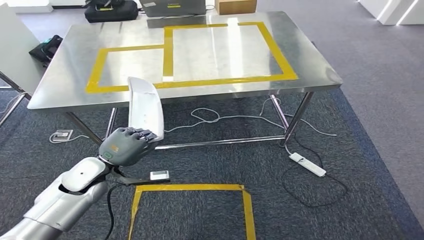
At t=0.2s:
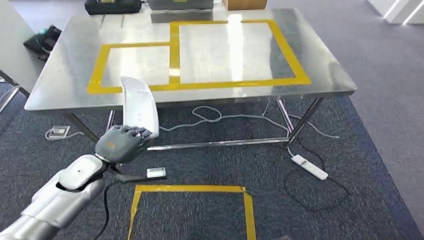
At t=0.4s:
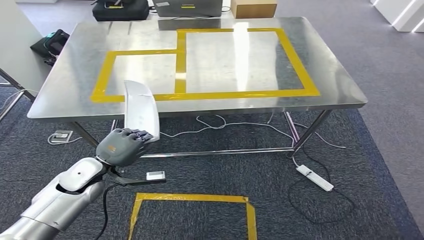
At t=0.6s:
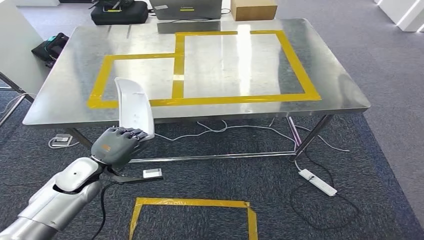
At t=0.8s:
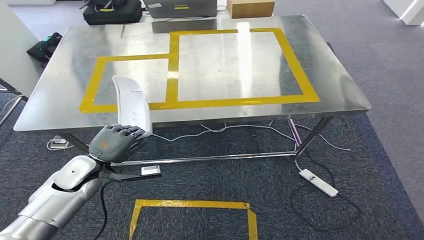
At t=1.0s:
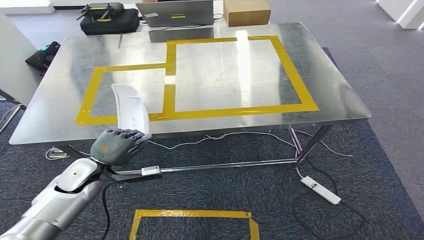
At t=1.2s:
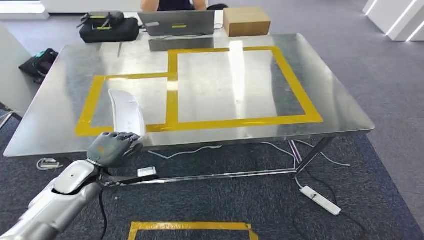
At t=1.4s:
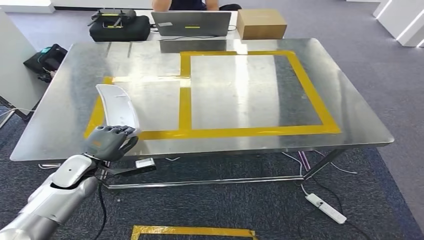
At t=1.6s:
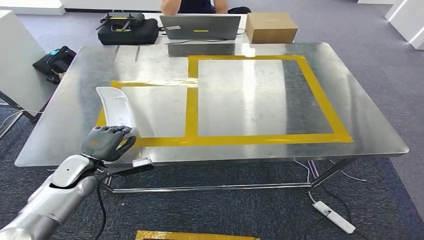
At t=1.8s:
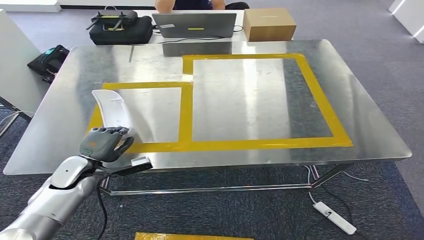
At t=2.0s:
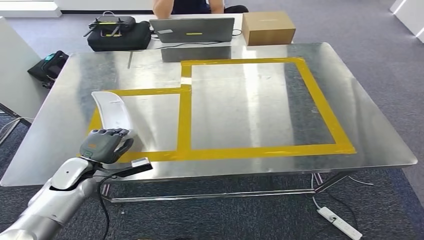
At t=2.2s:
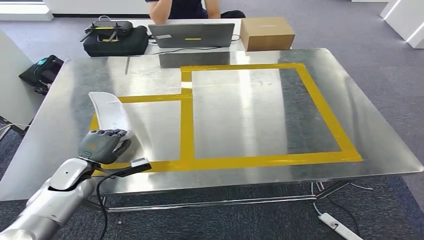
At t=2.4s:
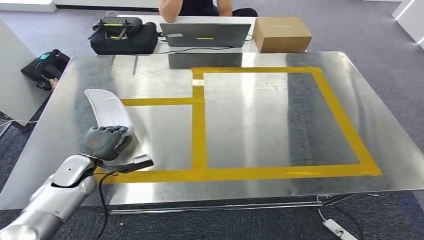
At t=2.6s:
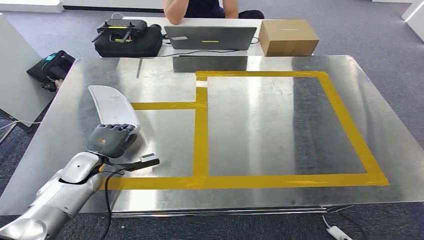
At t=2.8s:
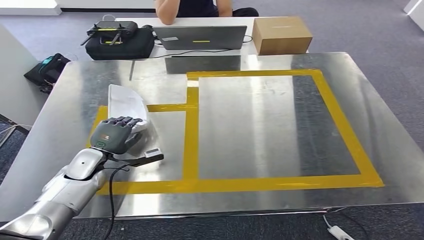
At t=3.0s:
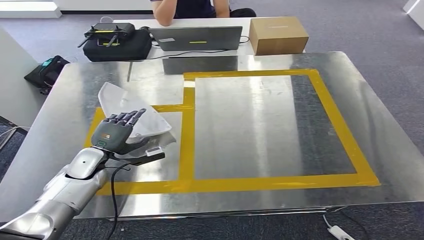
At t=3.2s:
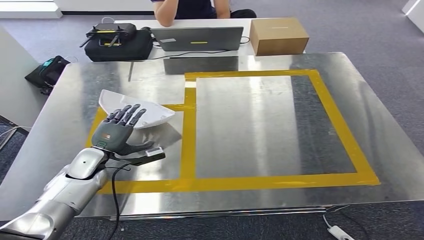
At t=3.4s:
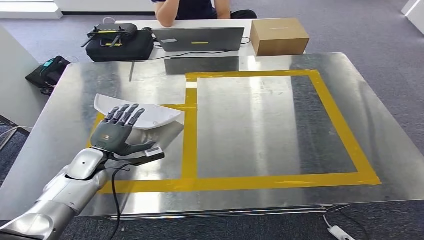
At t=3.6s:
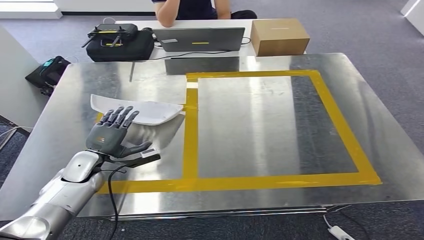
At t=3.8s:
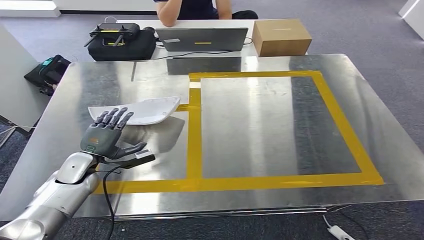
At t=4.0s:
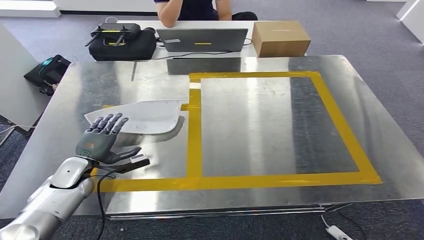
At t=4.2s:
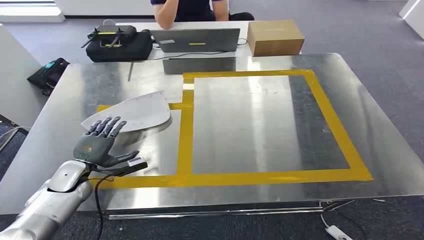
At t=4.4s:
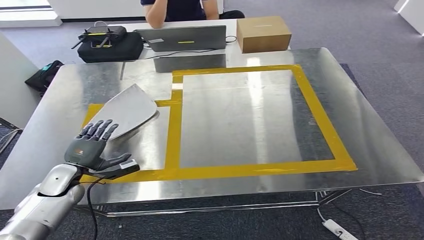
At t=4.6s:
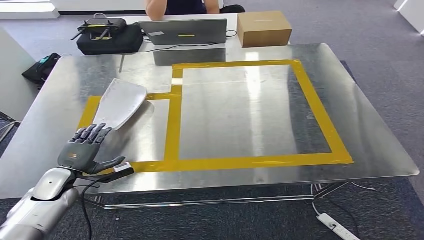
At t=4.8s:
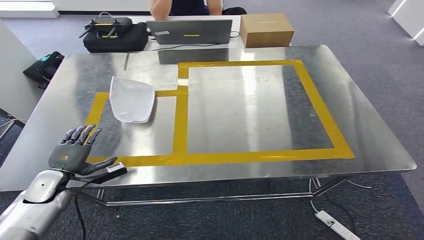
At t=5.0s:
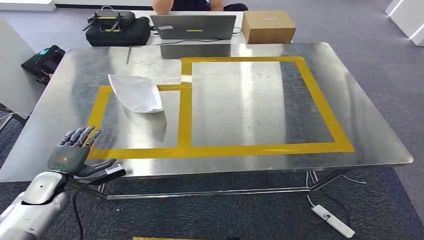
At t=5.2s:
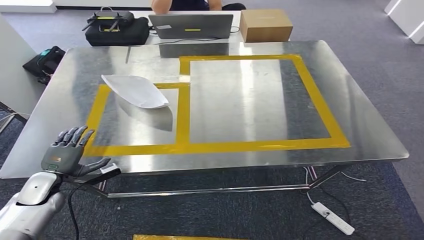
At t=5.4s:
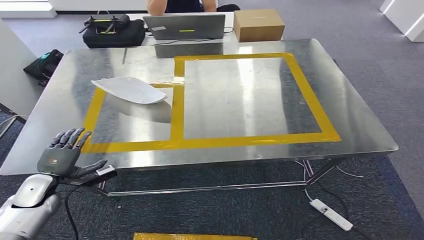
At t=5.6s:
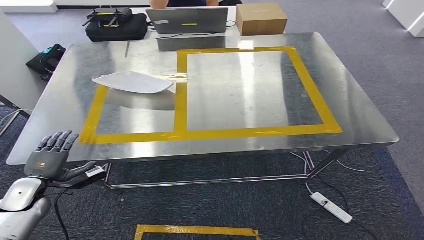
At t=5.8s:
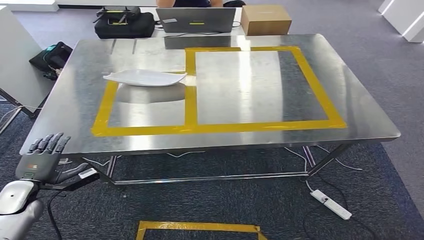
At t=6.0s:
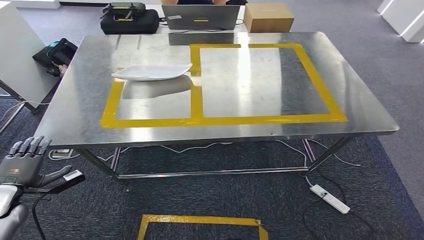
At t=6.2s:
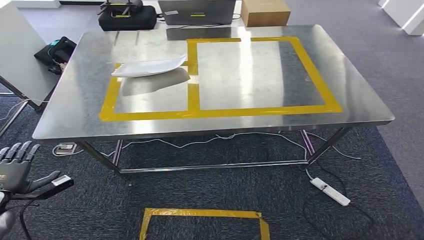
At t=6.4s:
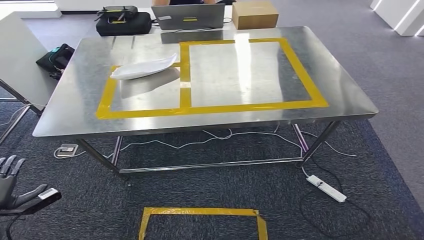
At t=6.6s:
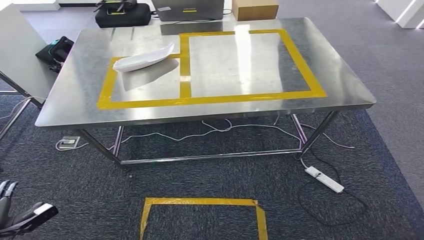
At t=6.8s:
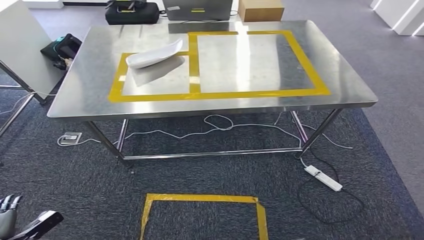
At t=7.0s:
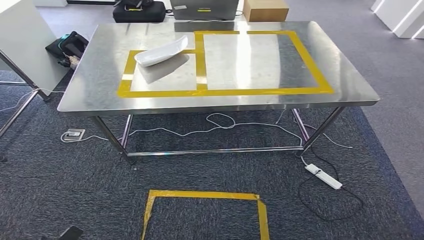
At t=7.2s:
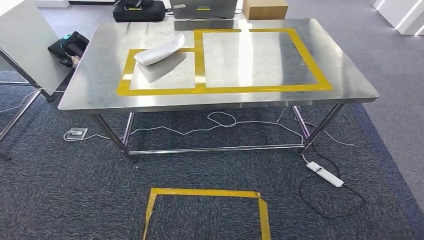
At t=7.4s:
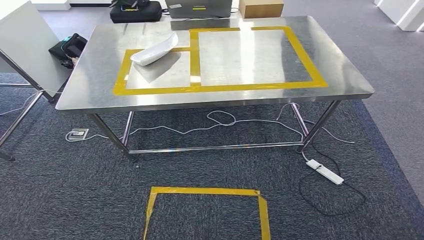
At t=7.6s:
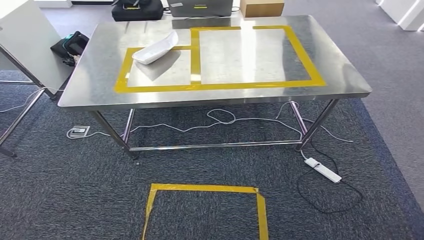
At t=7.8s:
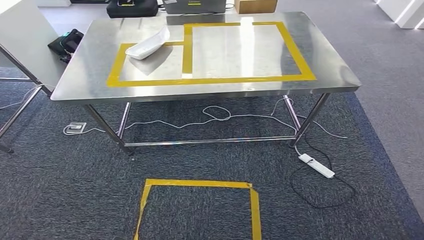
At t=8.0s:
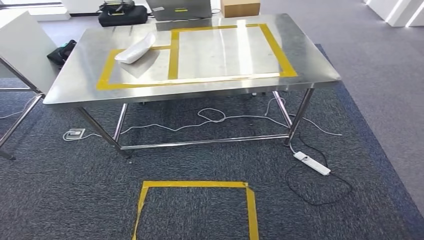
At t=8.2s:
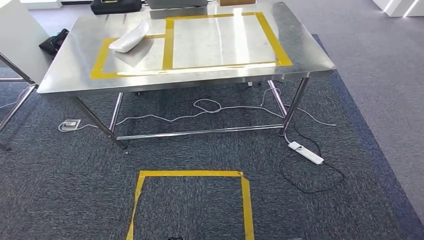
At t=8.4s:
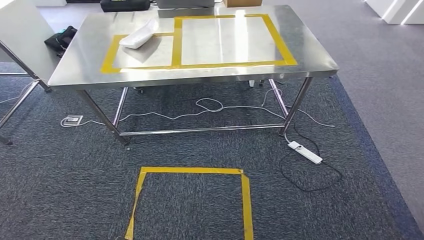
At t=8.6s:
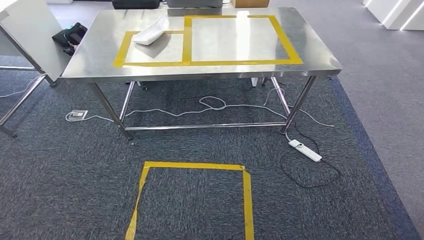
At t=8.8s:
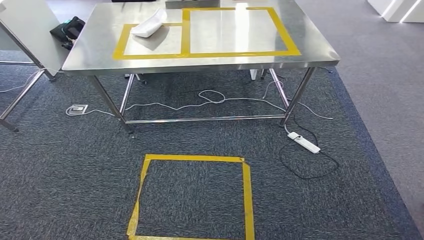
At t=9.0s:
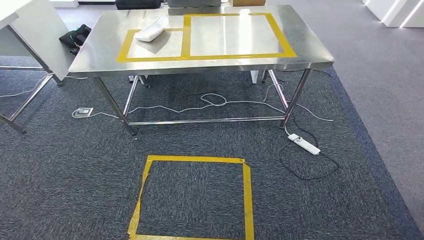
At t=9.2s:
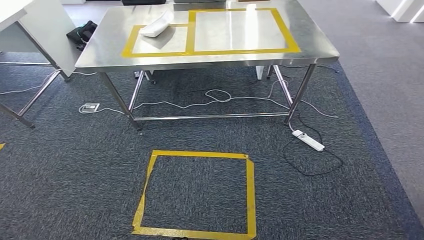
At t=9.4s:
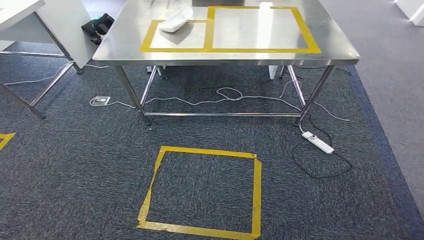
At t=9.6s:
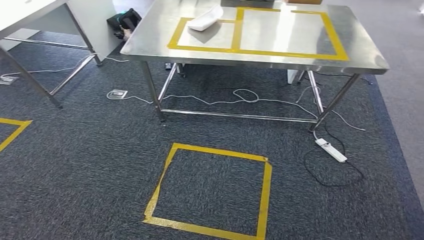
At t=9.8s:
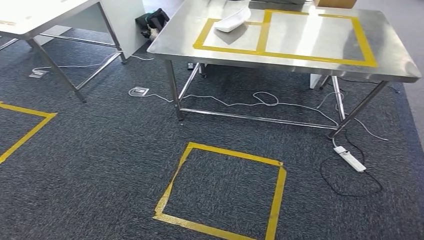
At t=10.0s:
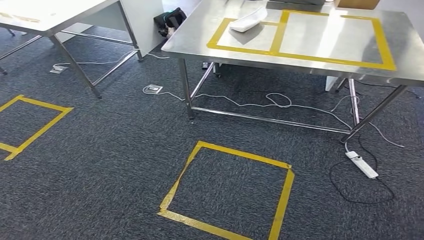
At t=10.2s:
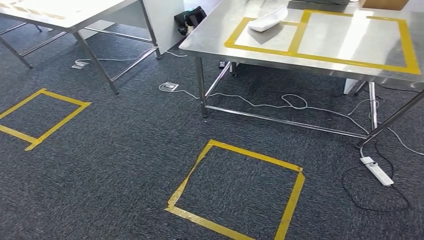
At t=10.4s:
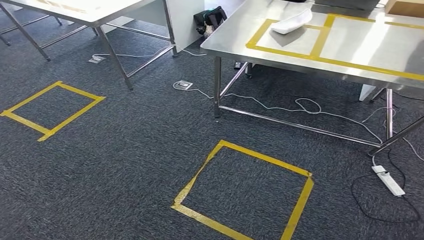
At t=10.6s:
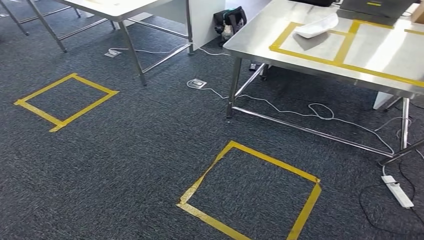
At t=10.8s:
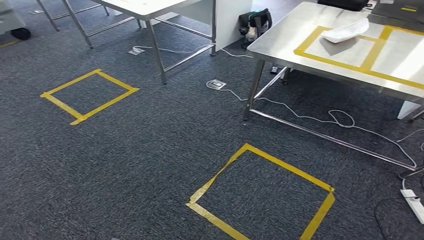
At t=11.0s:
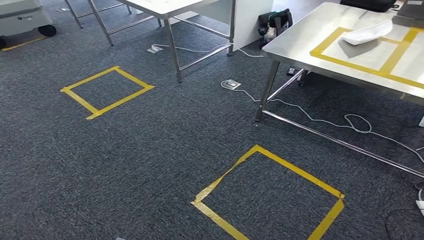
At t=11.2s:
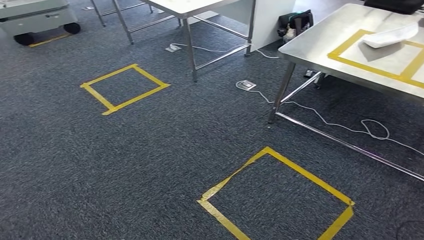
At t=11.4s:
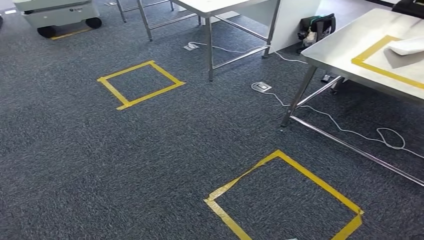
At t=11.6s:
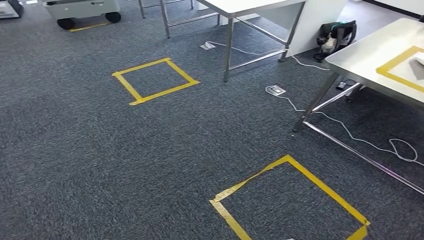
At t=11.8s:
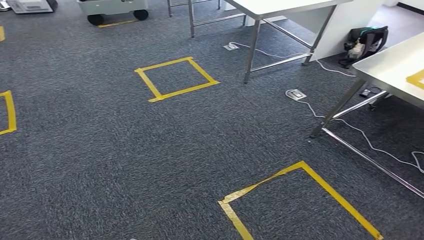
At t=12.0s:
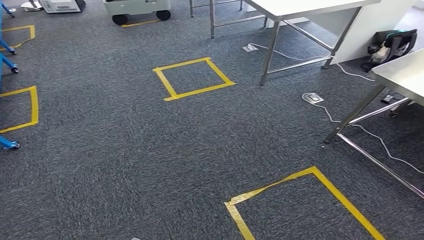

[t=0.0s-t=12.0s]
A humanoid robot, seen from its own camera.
Step, t=0.0s to t=6.0s: Insert the small component into the corresponding slot on the workbench.

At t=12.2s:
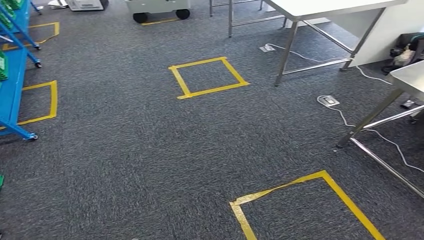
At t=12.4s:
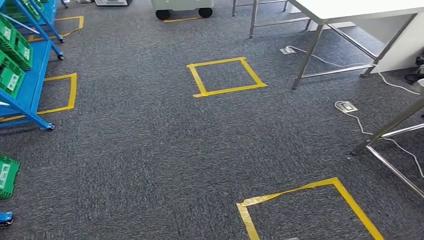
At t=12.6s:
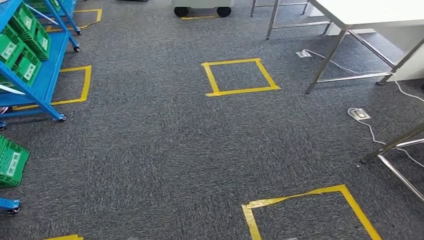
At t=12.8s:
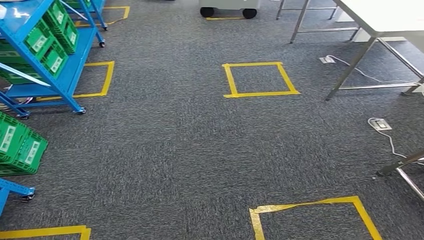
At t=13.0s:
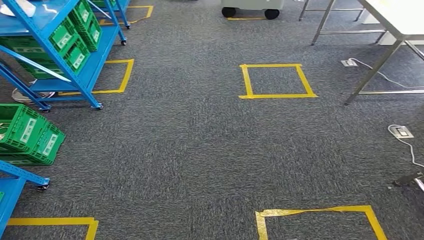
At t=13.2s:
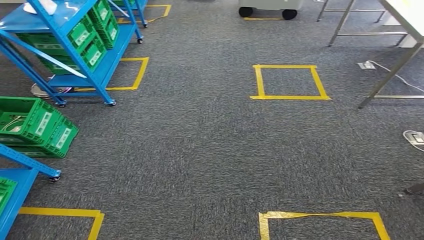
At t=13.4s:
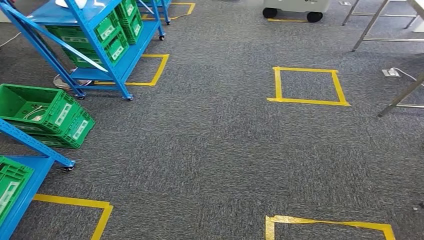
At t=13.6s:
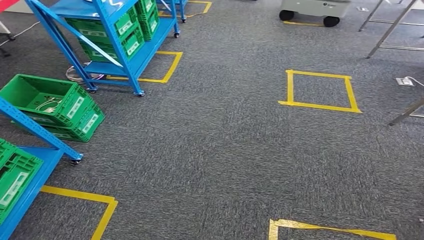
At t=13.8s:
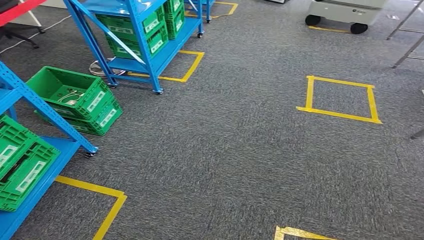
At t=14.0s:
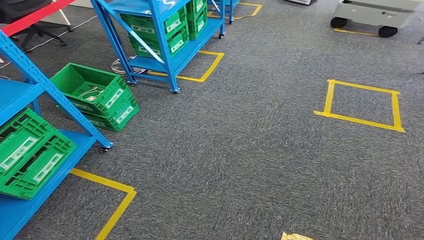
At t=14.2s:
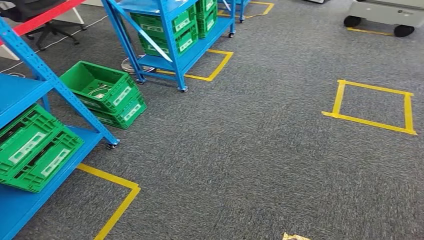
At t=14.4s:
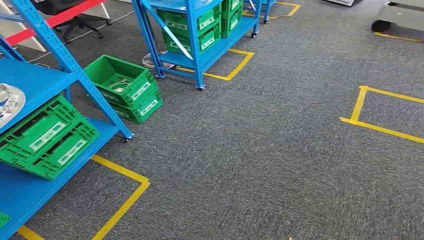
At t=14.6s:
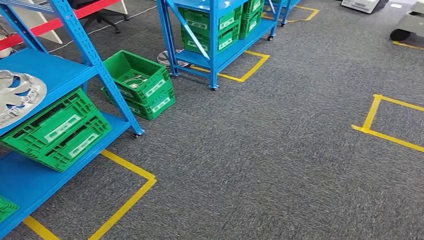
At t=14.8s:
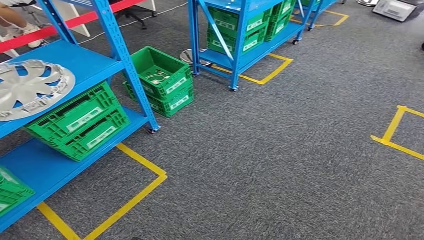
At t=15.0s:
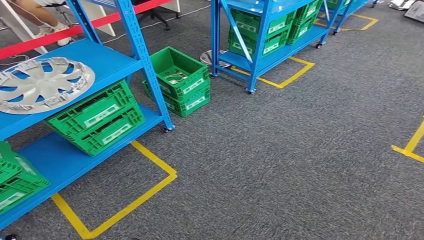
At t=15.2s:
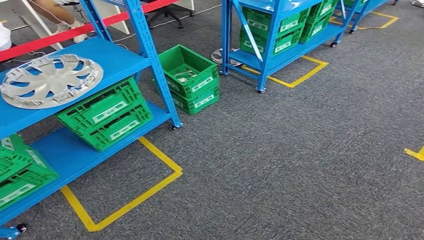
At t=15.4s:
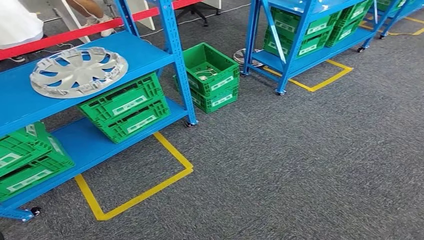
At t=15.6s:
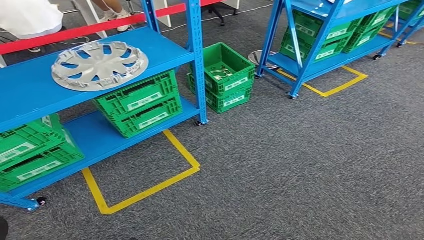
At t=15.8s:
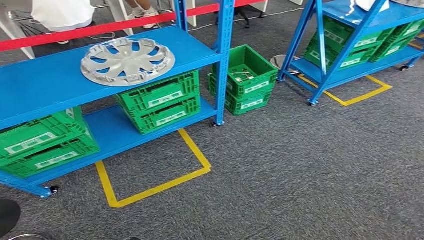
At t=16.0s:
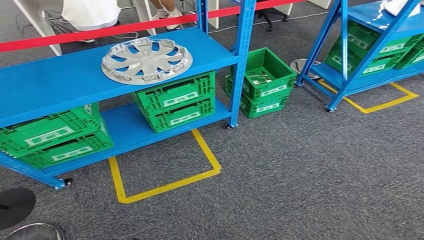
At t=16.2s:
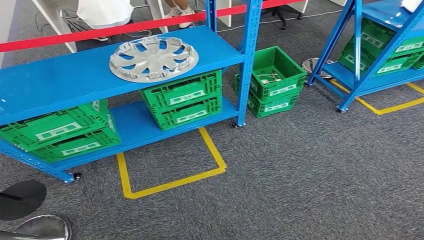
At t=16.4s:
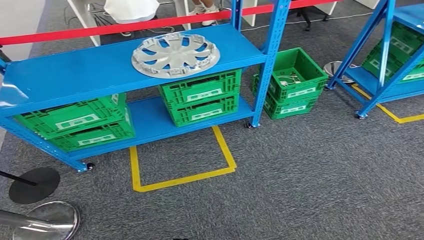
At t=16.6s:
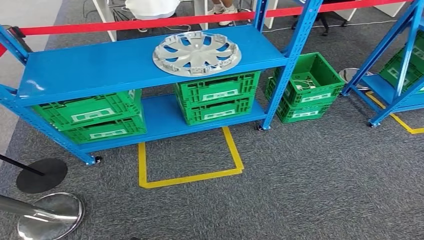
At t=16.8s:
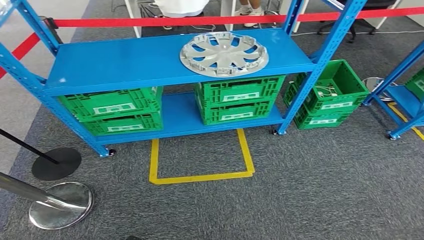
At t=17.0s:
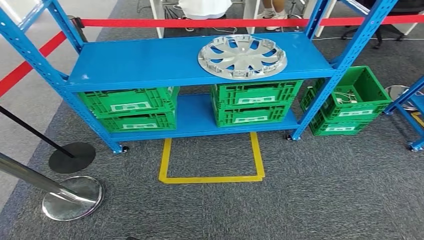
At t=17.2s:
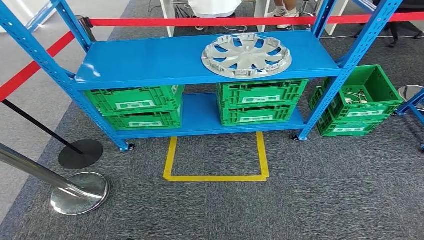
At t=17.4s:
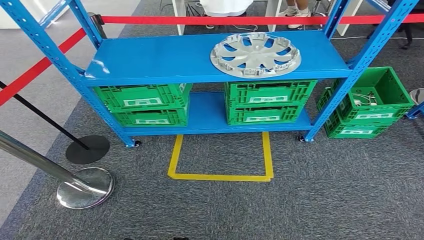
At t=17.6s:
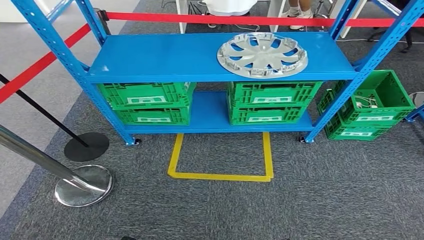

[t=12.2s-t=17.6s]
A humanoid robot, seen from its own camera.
Step, t=12.2s to t=17.6s: Return to the initial position at the workbench.
